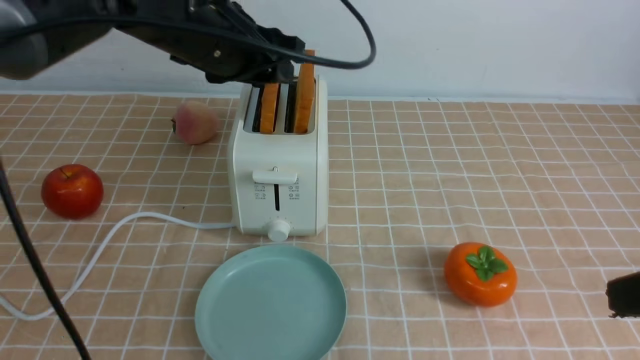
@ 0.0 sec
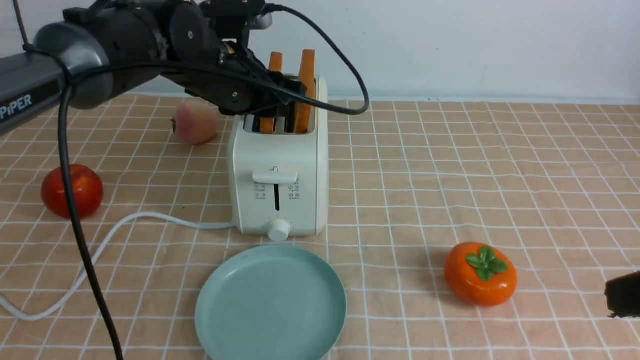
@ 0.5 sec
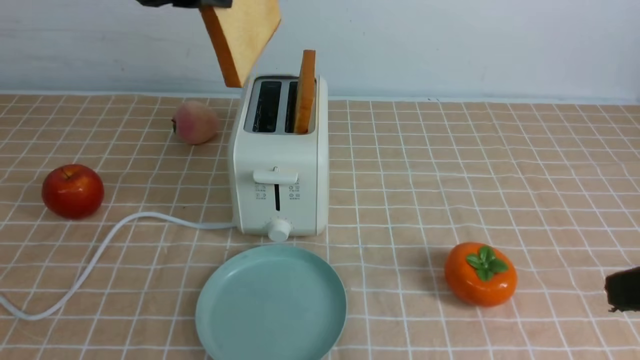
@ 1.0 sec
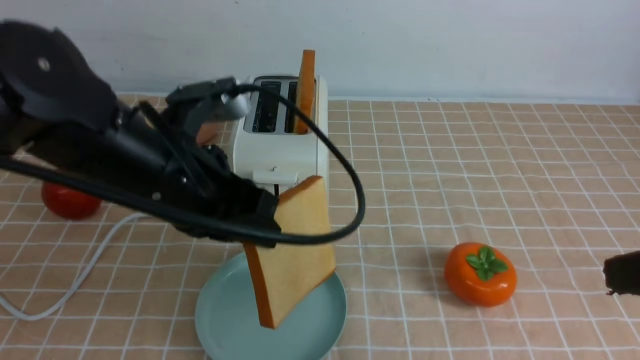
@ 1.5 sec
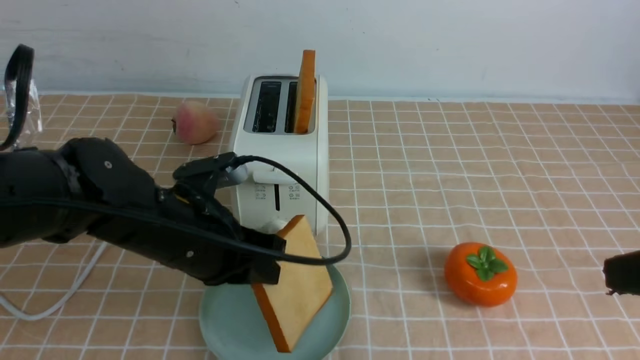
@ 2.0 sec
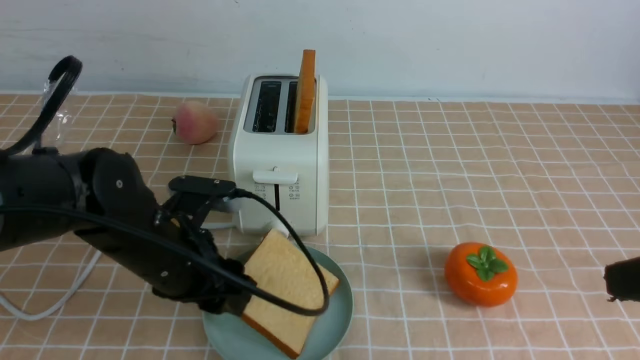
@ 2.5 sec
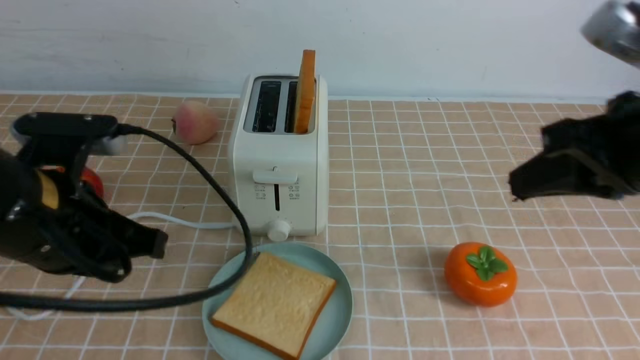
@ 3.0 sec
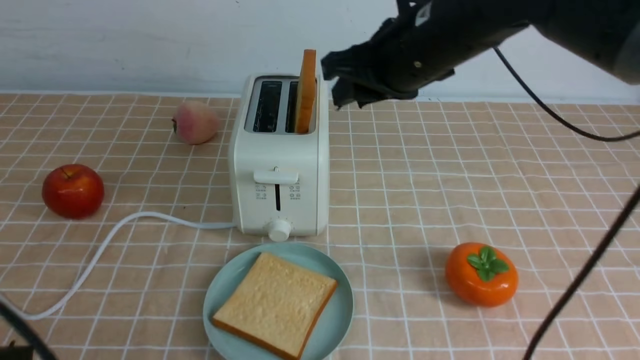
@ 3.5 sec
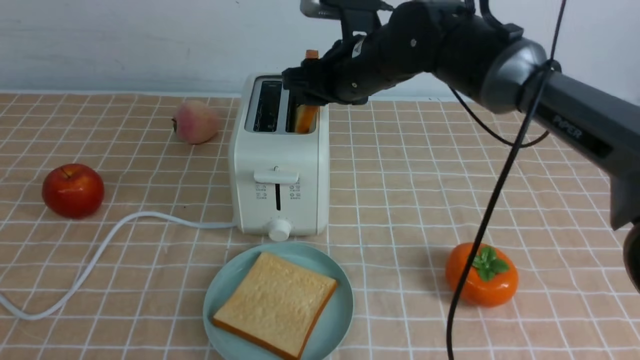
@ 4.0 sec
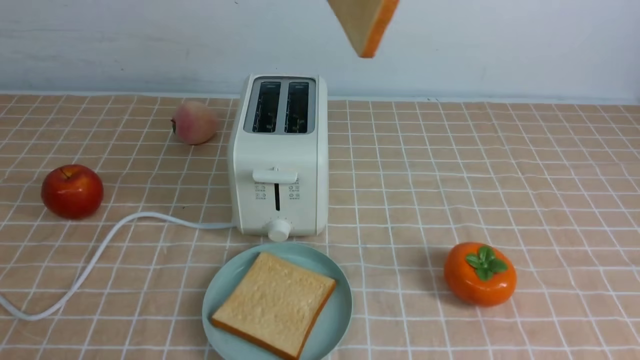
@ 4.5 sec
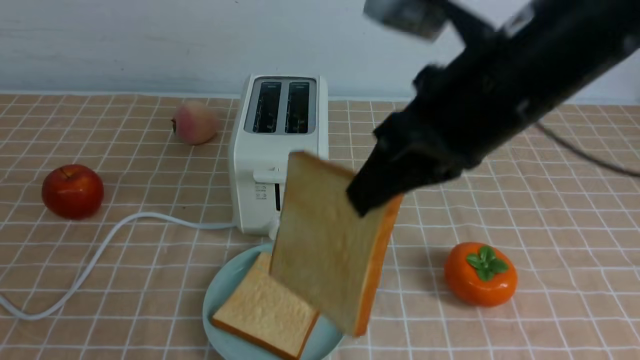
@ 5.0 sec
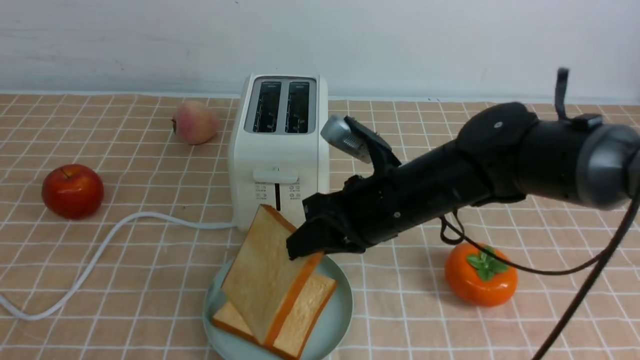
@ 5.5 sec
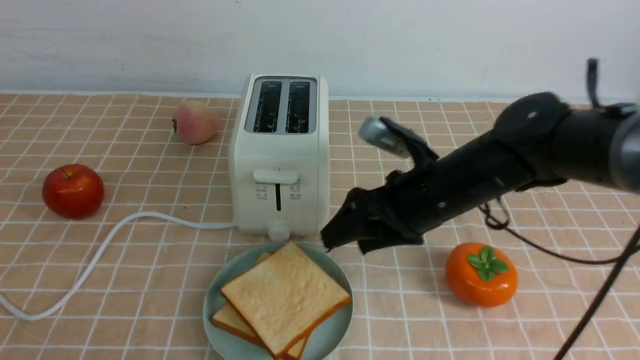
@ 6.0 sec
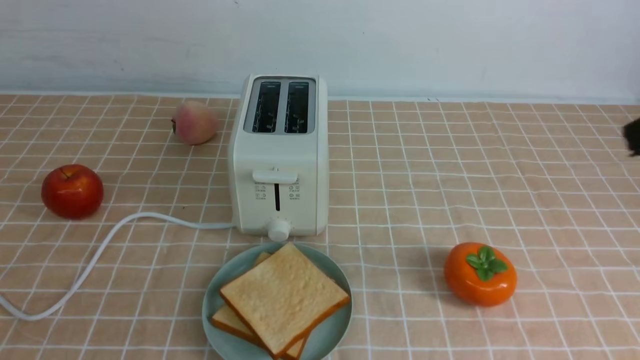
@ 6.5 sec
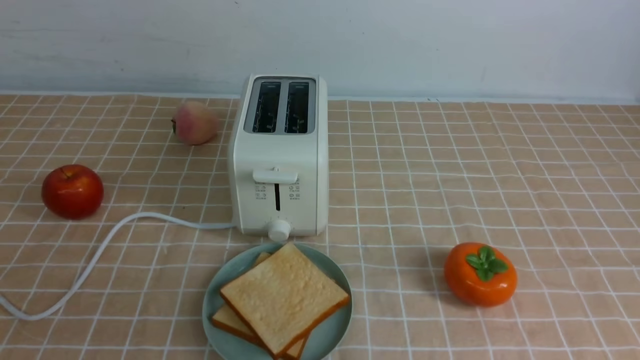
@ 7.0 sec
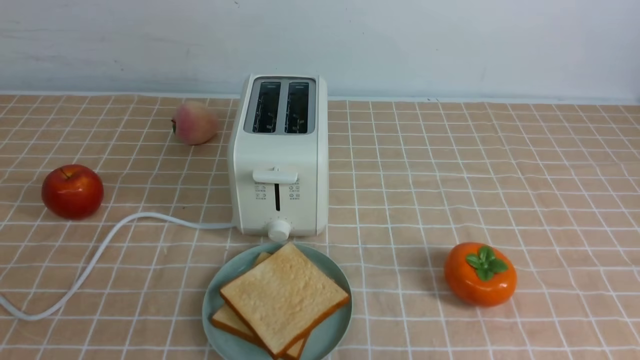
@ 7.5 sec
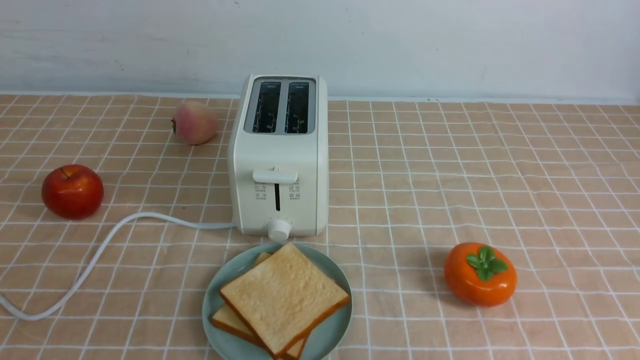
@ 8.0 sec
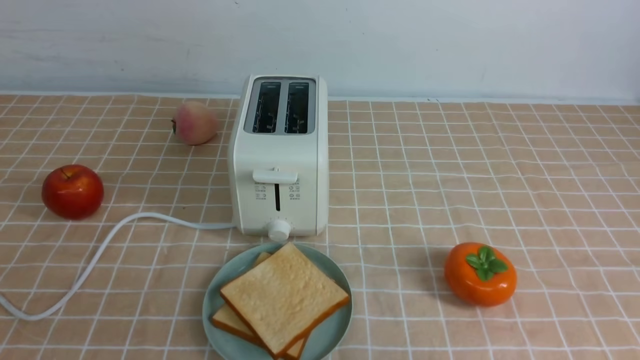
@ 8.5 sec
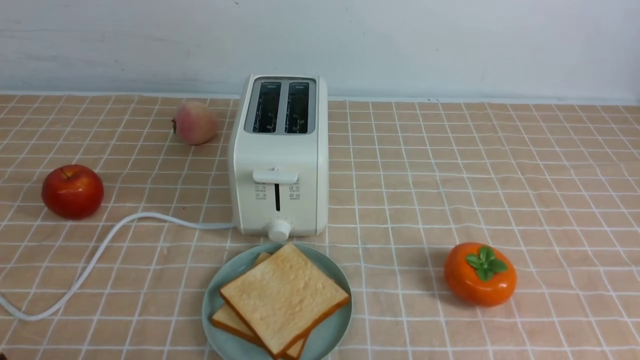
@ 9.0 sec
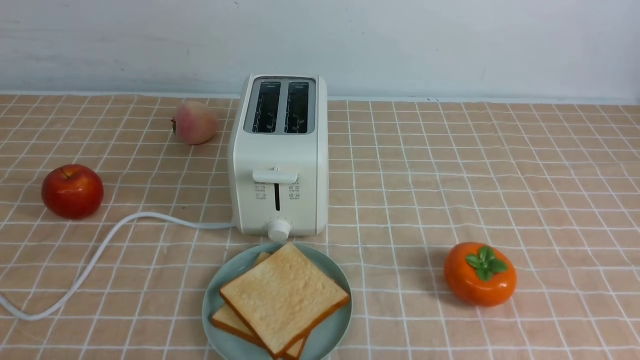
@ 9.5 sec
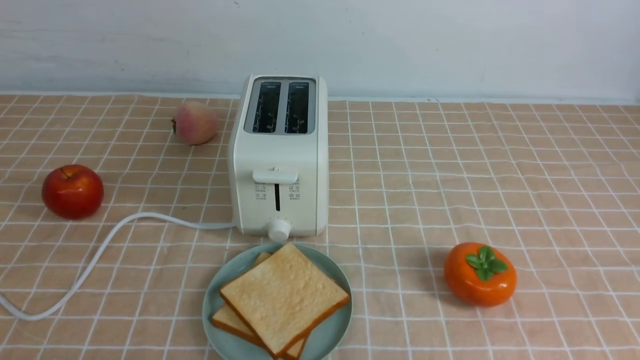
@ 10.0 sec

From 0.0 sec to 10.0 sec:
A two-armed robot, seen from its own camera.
Task of the whole recording: take toasted bread from bread machine on light coffee tablecloth place on plate.
Step, from 1.0 sec to 2.5 sec: use the left arm to put a slice of bread into the empty plate.
Step, from 3.0 sec to 4.0 sec: use the right arm to take out a slice of bread.
Step, from 4.5 sec to 6.0 sec: use the right arm to put a slice of bread into the plate.
From 0.0 sec to 2.0 sec: The left gripper heads downward and backward, covering about 20 cm, and closes up.
From 2.0 sec to 4.0 sec: The right gripper goes approximately 35 cm forward and to the left, and opens up. Meanwhile the left gripper is displaced backward and to the left by approximately 30 cm, and closes up.
From 4.0 sec to 6.0 sec: The right gripper moves backward and to the right, some 15 cm, moves roughly 15 cm upward and comes back, and closes, then reopens.
From 6.0 sec to 8.0 sec: The right gripper heads backward and to the right, covering about 30 cm, and closes up.

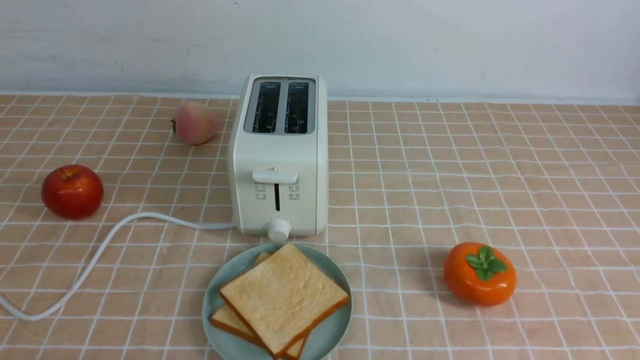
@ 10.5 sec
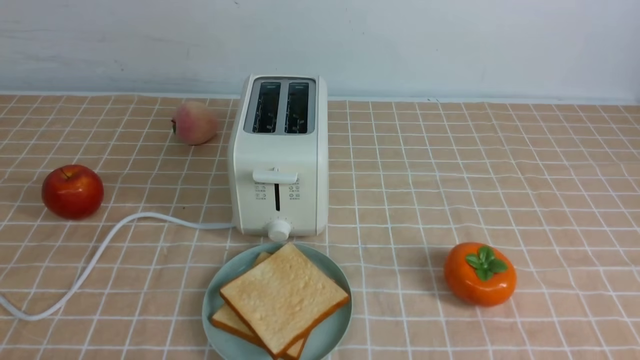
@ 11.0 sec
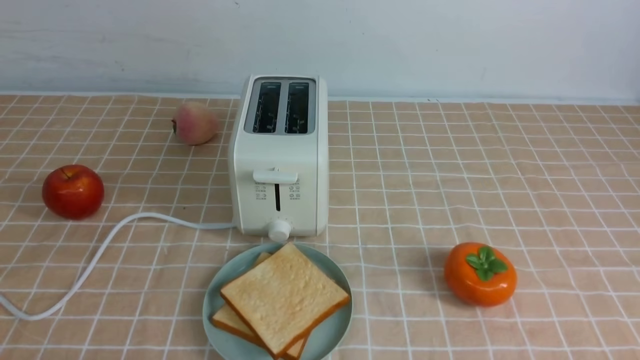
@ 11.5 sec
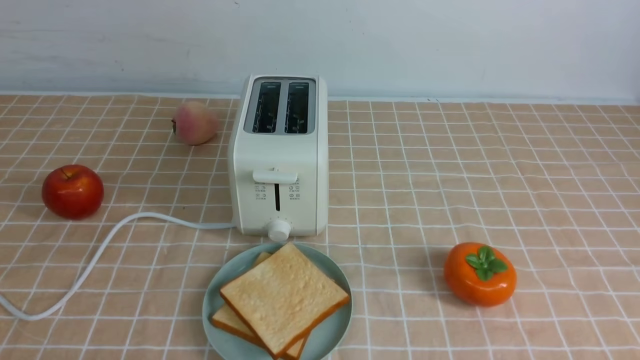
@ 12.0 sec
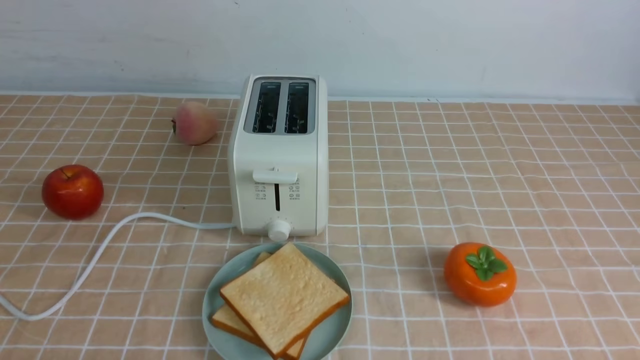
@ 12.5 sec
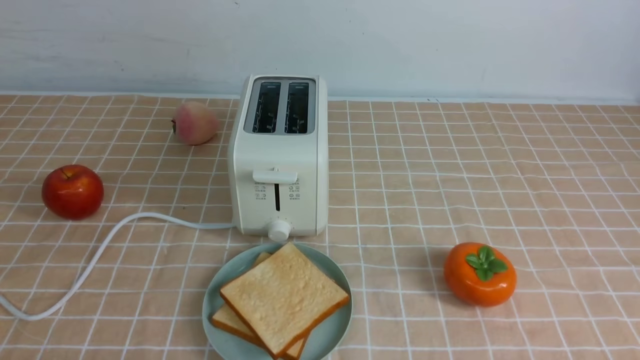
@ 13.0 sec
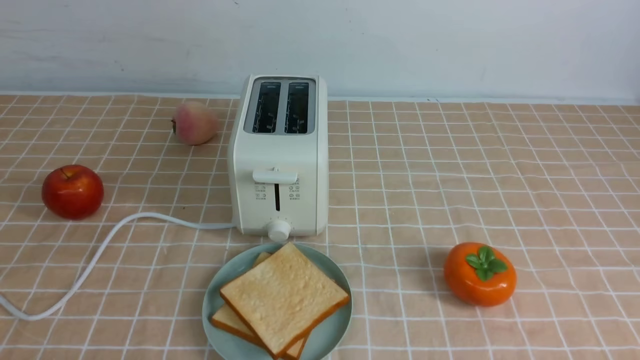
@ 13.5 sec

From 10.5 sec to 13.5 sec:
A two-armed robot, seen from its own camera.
Task of the whole recording: take toasted bread from bread machine on light coffee tablecloth place on plate.
From 12.0 sec to 13.5 sec: Neither gripper changes place.
